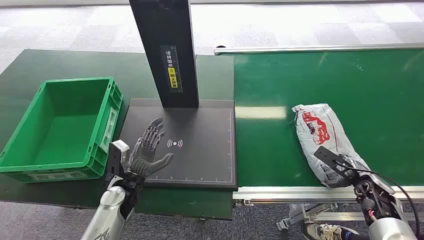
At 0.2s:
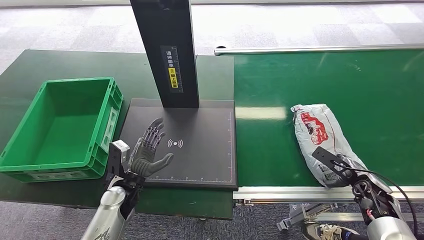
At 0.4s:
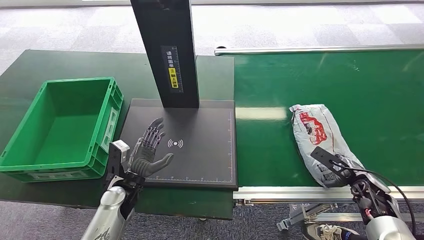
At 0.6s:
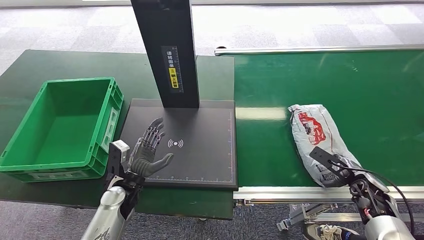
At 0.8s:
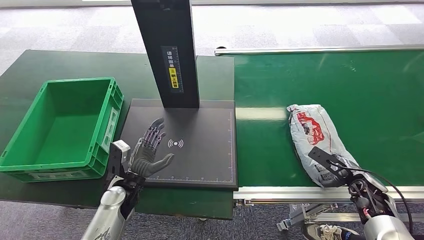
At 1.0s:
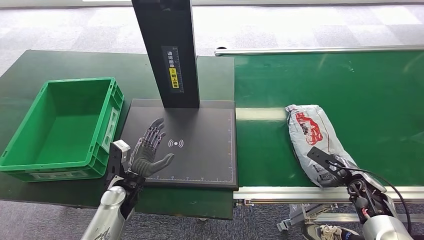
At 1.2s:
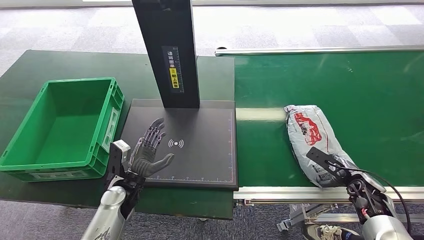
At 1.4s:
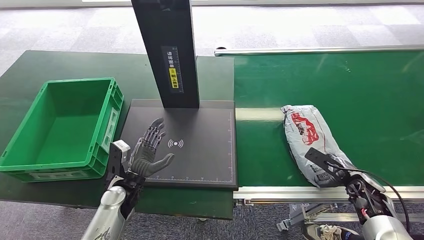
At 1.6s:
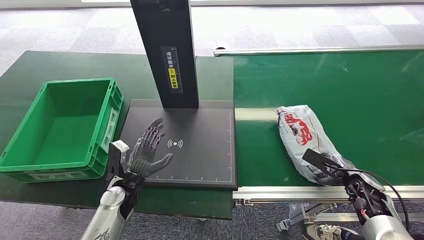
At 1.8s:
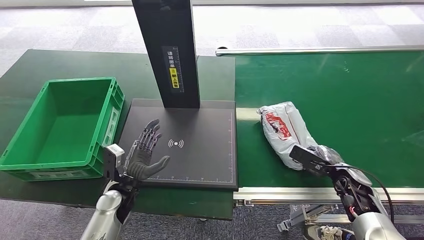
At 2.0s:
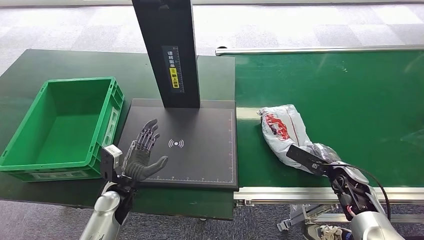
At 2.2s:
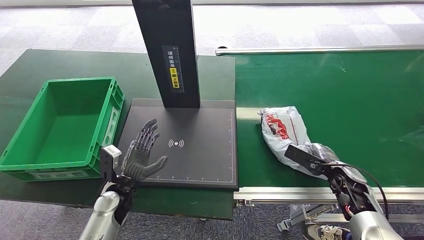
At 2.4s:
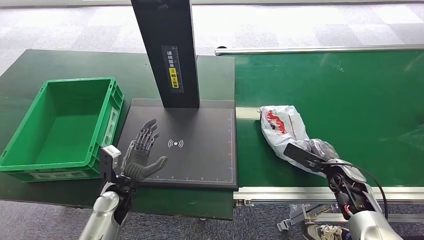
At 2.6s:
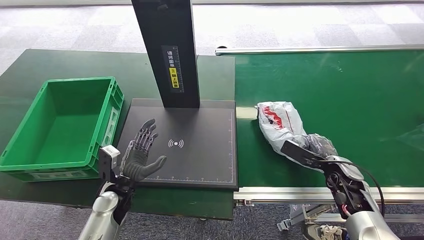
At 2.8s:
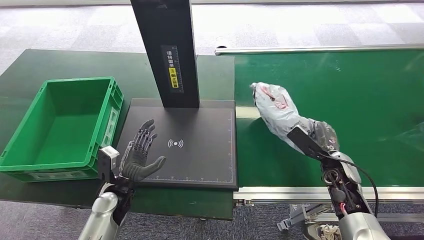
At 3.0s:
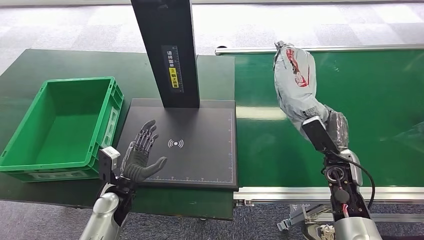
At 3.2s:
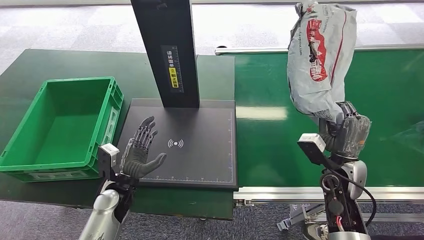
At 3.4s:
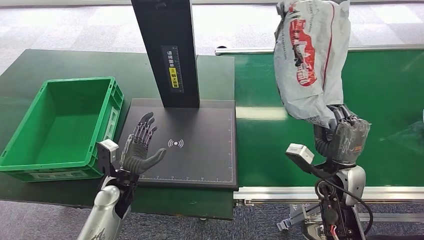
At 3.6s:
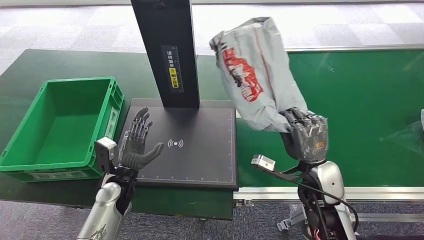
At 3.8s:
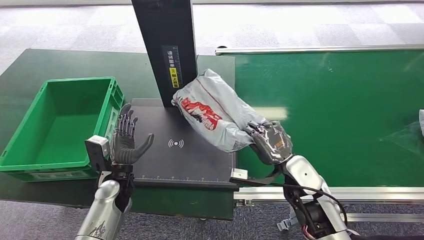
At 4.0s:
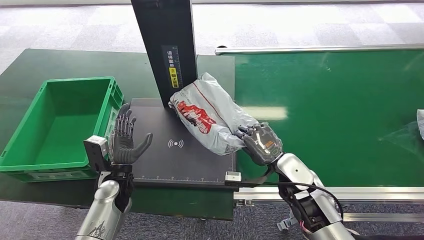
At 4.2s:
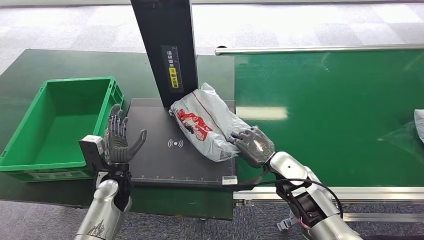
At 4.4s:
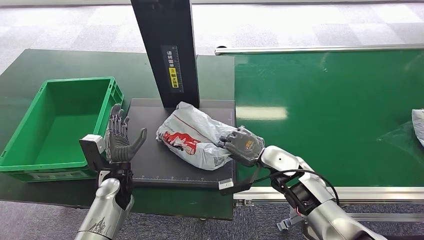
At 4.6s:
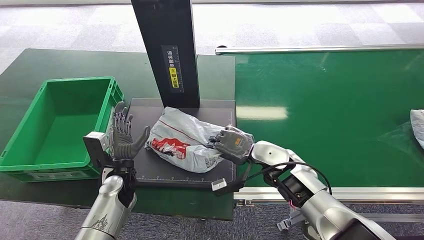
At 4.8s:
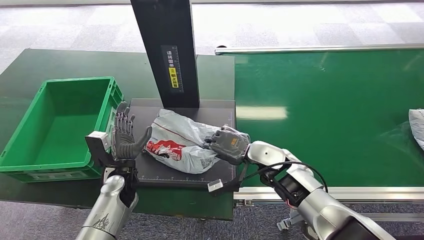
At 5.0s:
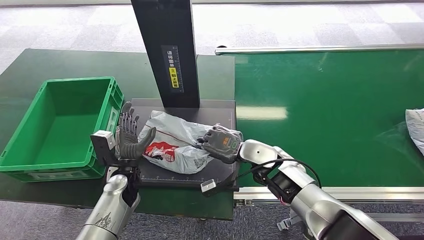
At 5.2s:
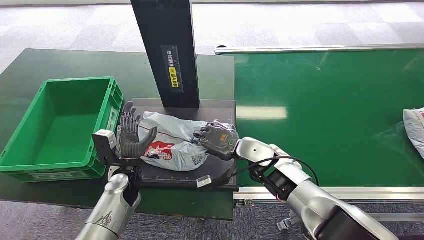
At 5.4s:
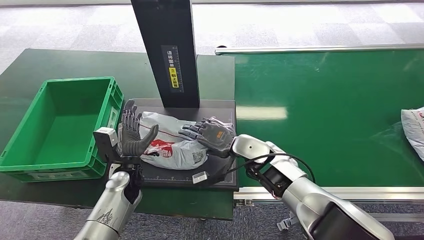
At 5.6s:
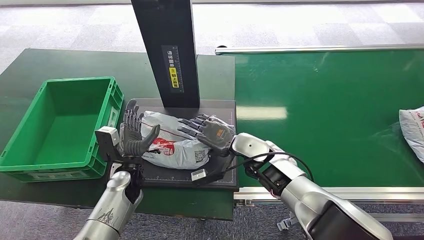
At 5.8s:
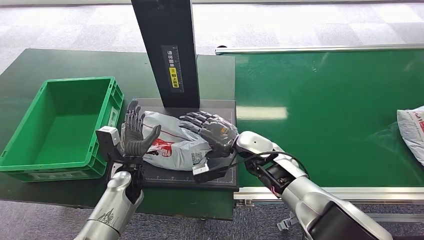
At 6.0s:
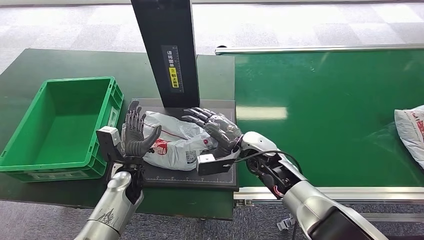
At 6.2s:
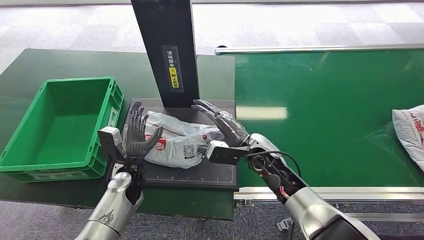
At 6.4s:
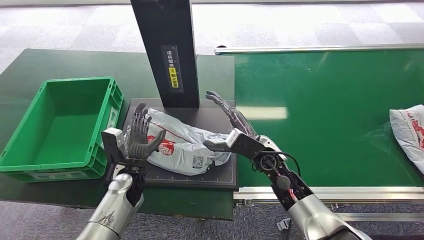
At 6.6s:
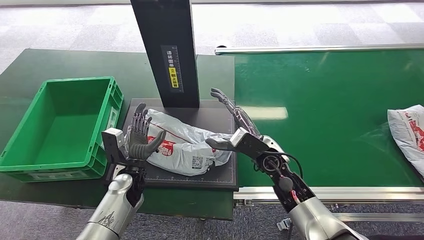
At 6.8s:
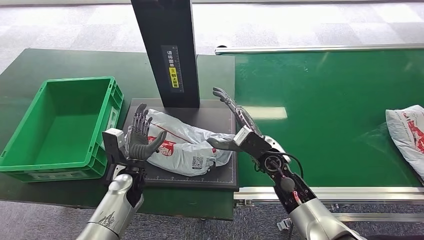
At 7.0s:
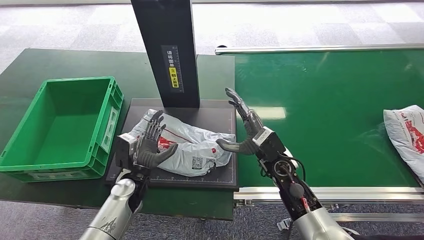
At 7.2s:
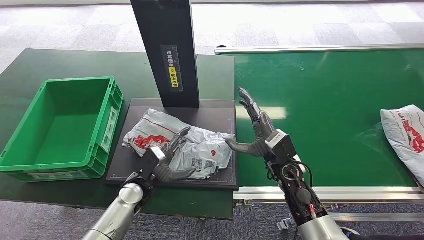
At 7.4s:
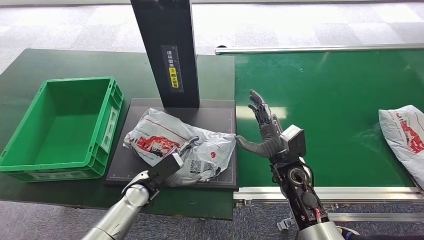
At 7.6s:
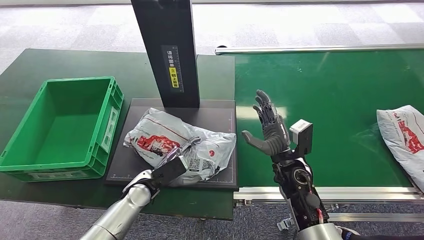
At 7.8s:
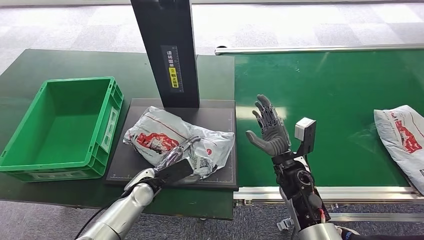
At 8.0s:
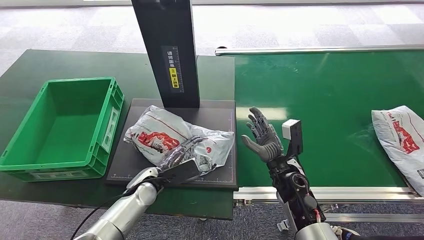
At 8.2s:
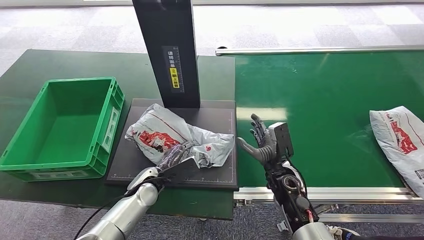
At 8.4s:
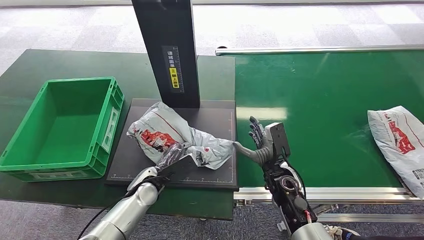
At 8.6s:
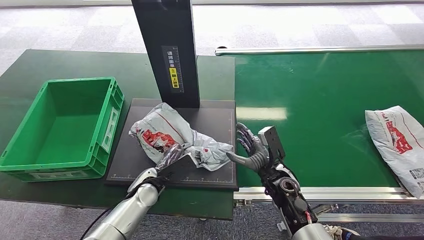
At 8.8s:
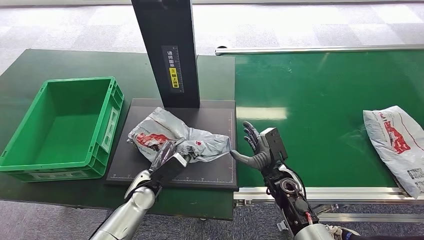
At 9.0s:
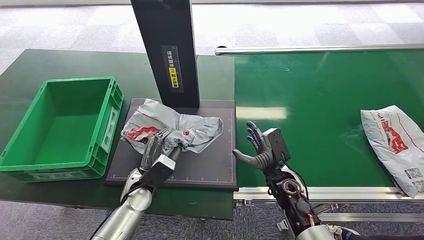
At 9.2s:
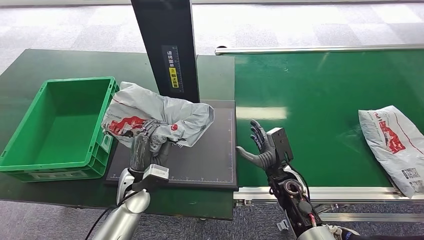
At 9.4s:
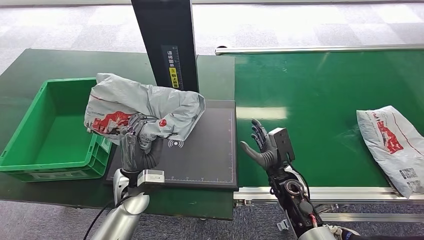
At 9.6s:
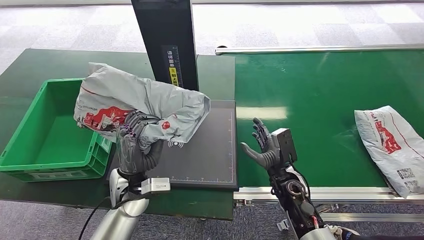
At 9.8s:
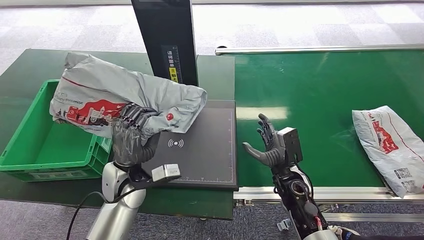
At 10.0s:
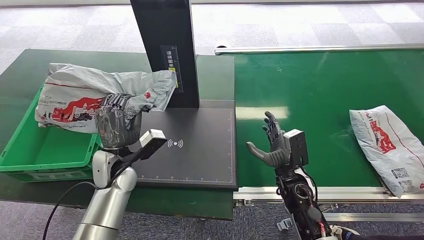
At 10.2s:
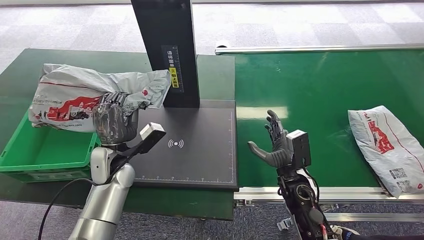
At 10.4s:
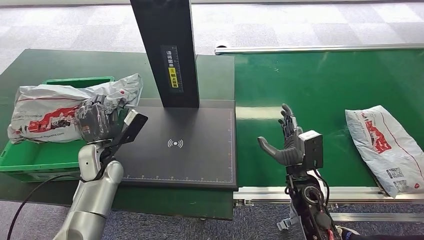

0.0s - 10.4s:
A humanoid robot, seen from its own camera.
Step, 0.0s - 2.8s: Pick up the package from the conveyor belt.
Step, 3.0s - 7.0s: Place the package onto the inbound machine.
Step, 7.2s - 9.8s: Pick up the package from the inbound machine.
1.4s - 3.0s: The right hand moves to the left and upward, about 10 cm.
3.0s - 4.4s: The right hand heads to the left, covering roughly 15 cm.
4.4s - 6.0s: The right hand shifts roughly 5 cm to the left.
6.0s - 7.4s: The right hand heads to the right, covering approximately 5 cm.
7.4s - 9.0s: The right hand travels downward by roughly 5 cm.

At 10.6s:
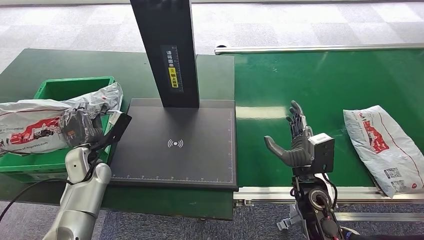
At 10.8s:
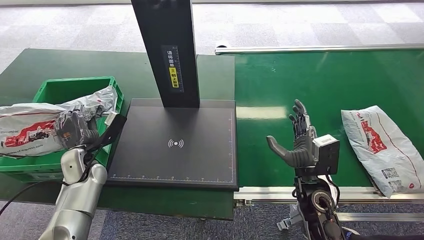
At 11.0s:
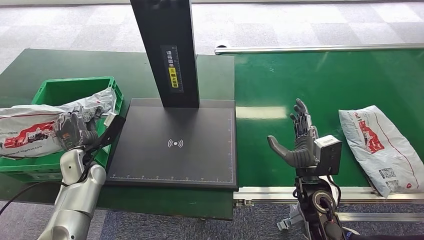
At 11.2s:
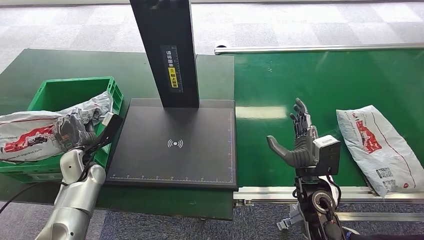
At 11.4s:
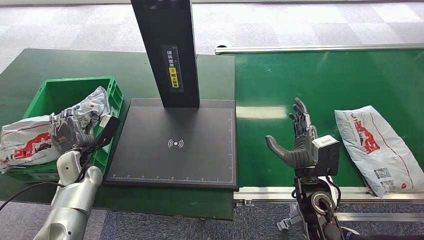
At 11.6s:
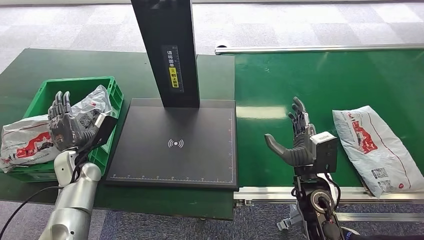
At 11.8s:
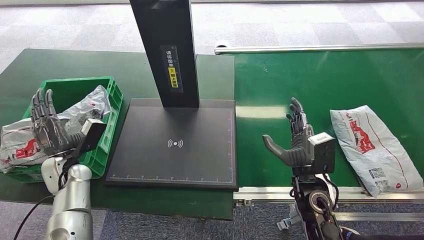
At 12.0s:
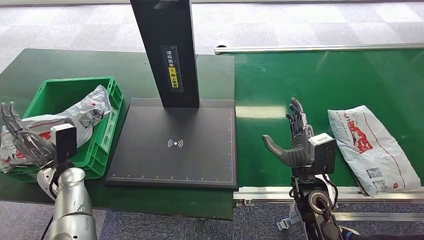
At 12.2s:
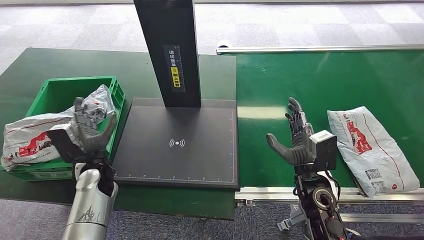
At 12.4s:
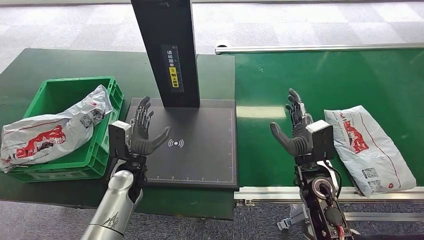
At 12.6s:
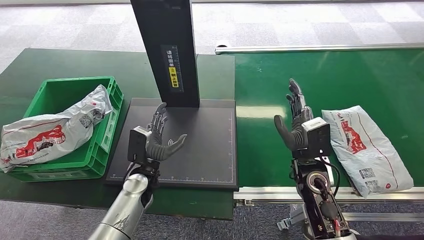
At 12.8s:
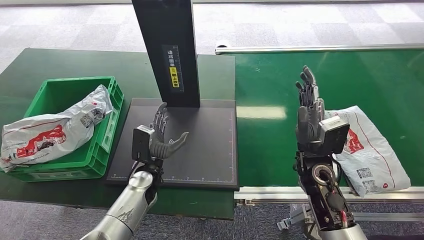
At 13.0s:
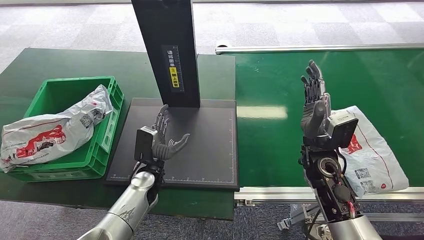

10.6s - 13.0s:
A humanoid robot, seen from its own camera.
Step, 10.6s - 13.0s: Place the package into the parcel locker.
10.6s - 11.8s: The left hand ends up about 5 cm from where it was.
